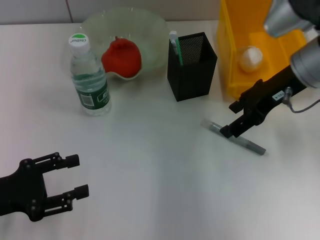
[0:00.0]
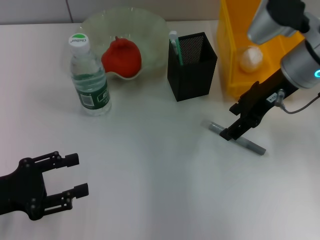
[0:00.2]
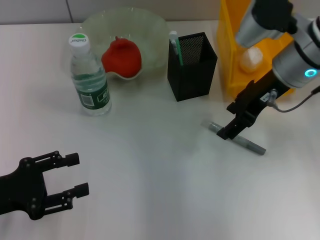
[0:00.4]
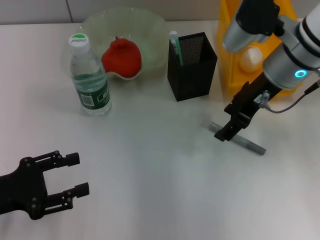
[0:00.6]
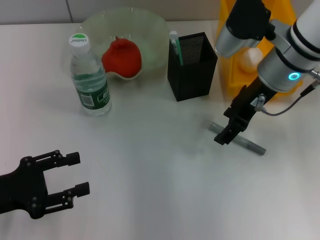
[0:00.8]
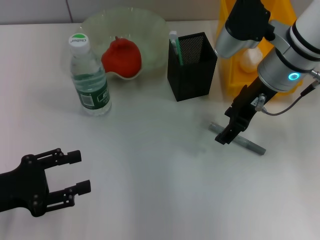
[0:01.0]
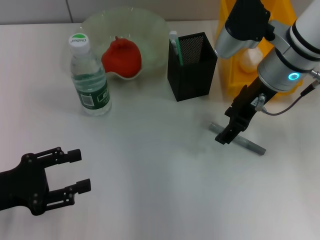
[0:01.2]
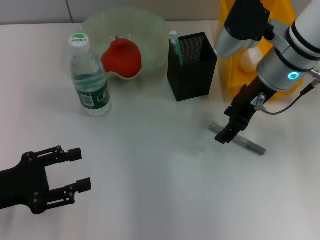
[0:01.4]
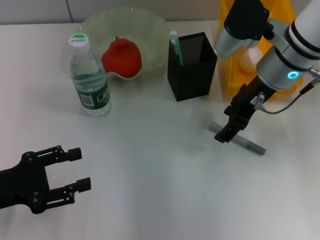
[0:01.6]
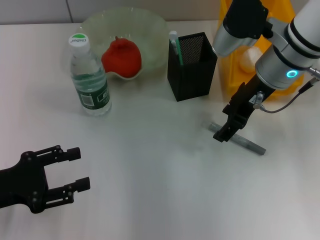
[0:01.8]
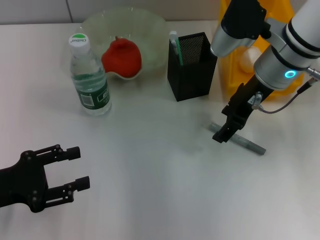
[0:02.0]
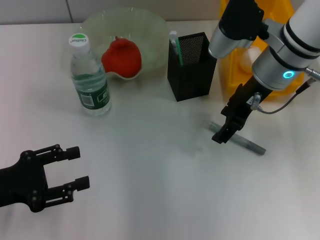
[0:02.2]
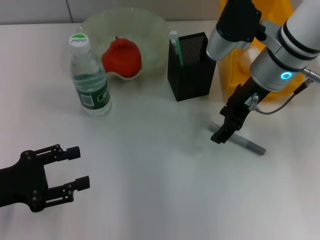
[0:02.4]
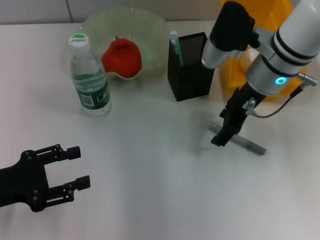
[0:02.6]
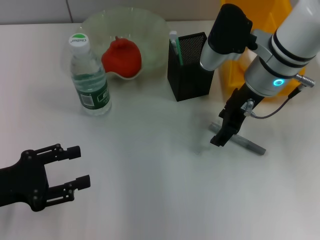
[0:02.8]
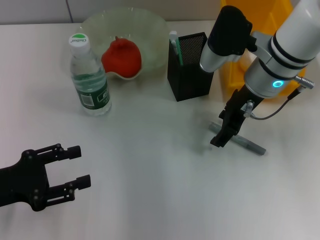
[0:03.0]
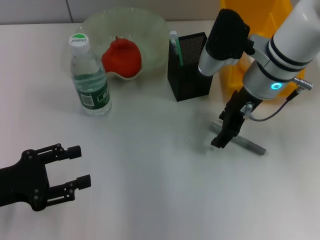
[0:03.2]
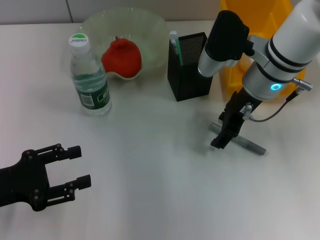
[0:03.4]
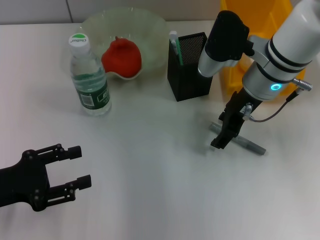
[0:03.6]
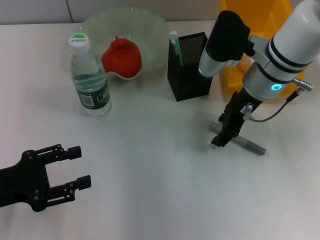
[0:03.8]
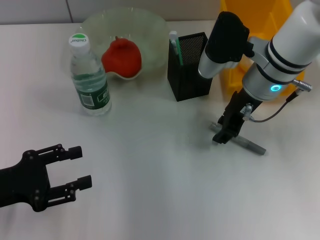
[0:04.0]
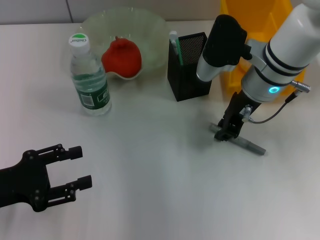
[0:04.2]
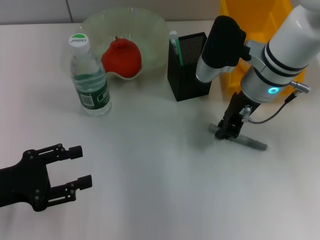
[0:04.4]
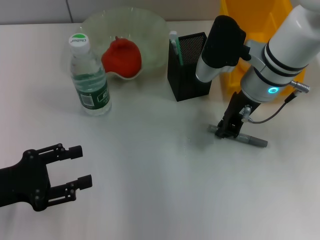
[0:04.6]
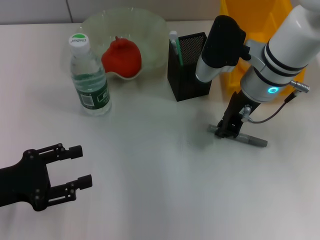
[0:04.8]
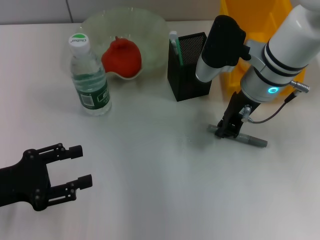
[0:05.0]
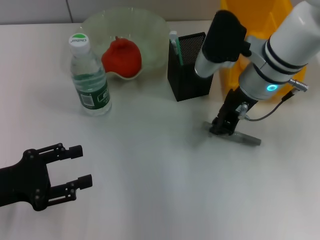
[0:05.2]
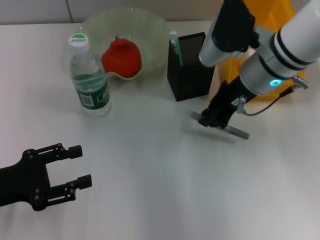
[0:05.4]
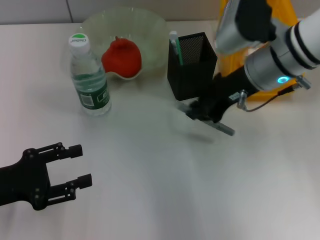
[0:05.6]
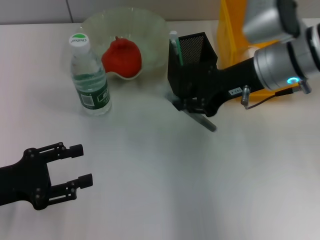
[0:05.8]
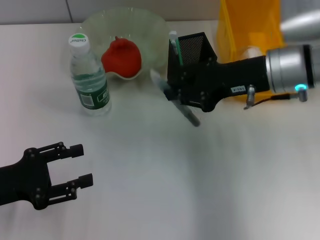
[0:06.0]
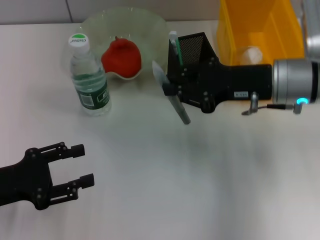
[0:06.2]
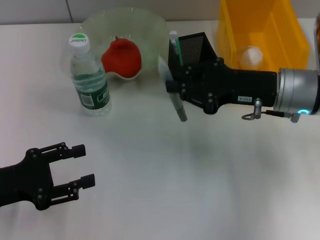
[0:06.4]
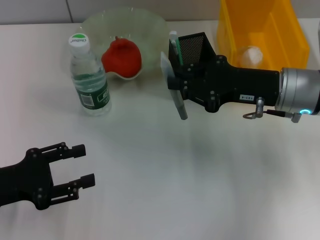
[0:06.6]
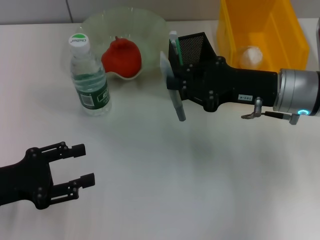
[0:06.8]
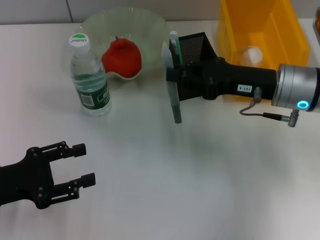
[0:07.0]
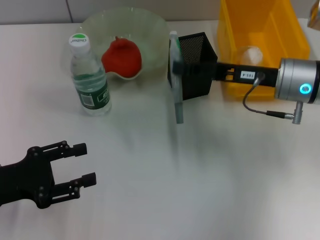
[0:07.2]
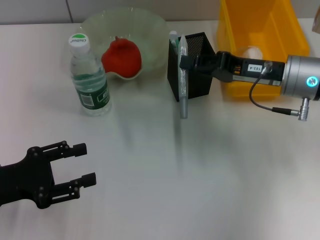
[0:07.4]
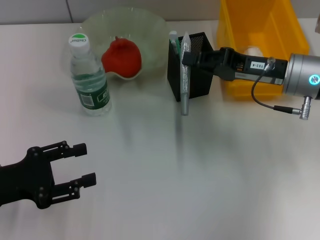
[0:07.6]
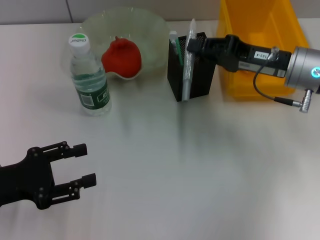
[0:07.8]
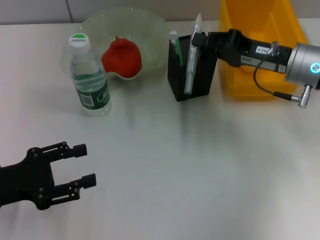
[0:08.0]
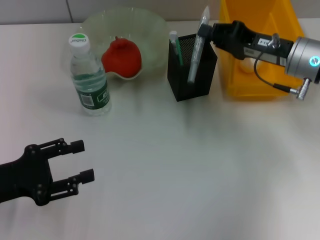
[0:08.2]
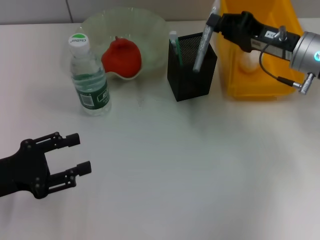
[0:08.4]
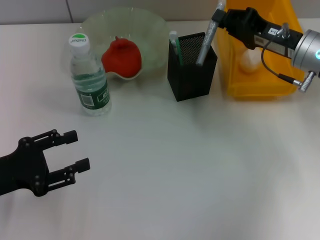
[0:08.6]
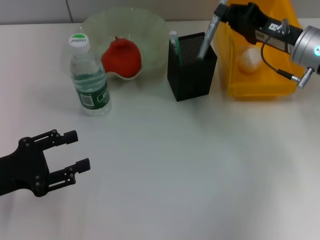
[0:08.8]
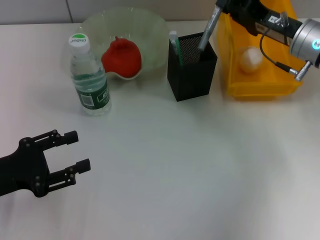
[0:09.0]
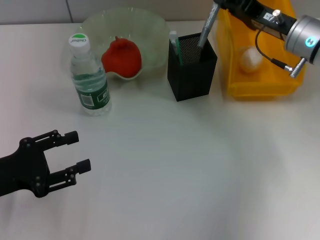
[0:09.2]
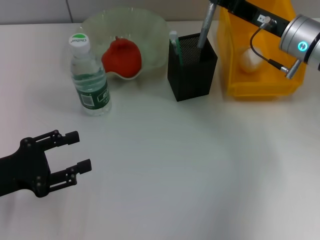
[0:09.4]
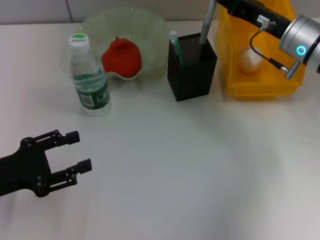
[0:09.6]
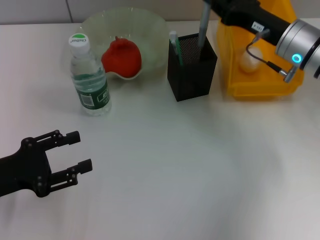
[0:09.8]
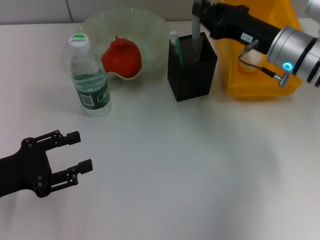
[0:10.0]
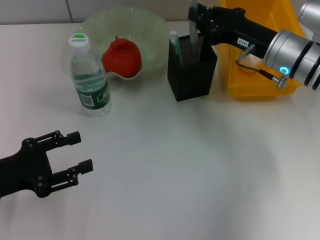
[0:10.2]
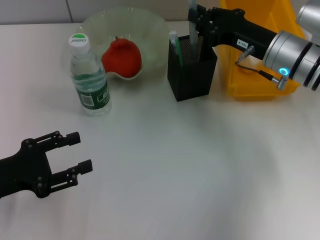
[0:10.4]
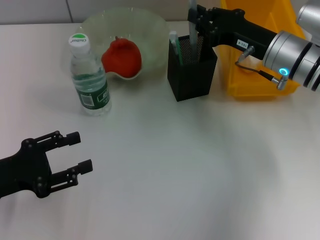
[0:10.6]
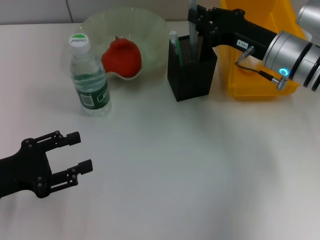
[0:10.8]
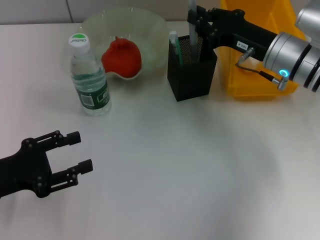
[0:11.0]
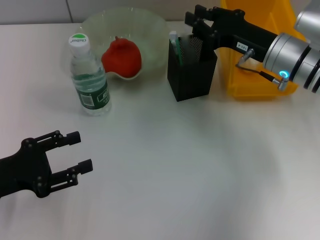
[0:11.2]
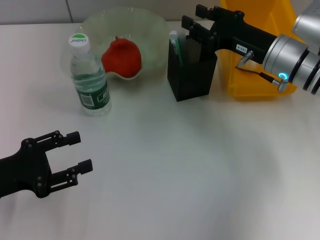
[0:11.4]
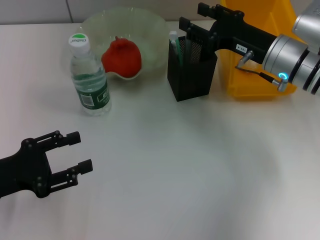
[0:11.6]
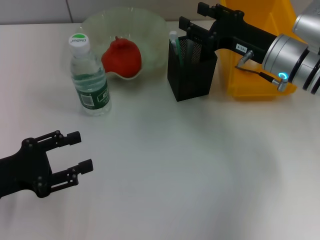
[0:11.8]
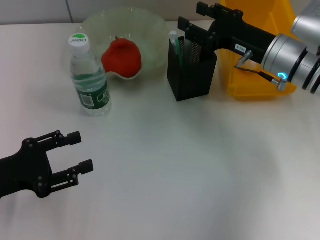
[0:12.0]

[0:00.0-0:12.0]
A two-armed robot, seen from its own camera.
Step, 0:00.0 to 0:04.8: Grab the gray glue with the right hand.
Step, 0:05.0 to 0:11.6: Place the gray glue into the pen holder with the right hand.
0:00.0 to 0:01.6: The right gripper changes place by approximately 5 cm.
0:01.6 to 0:03.0: The grippers make only small movements.
0:03.0 to 0:04.4: The right gripper closes up.
0:04.4 to 0:06.0: The right gripper moves approximately 5 cm.
0:06.0 to 0:07.6: The right gripper changes place by about 5 cm.
0:10.4 to 0:12.0: The right gripper opens up.

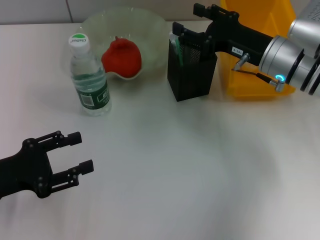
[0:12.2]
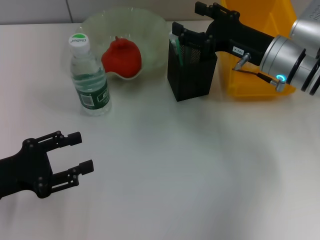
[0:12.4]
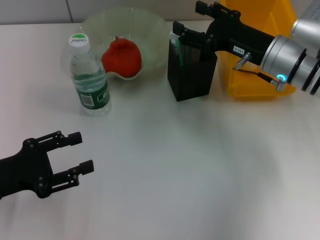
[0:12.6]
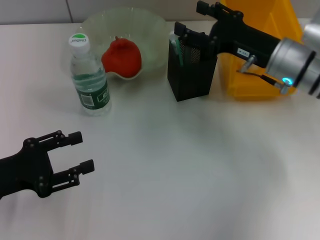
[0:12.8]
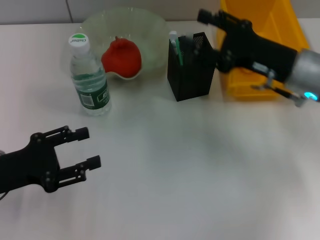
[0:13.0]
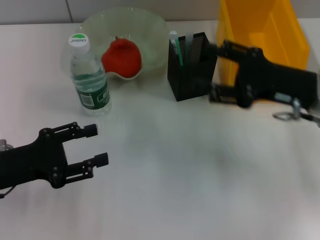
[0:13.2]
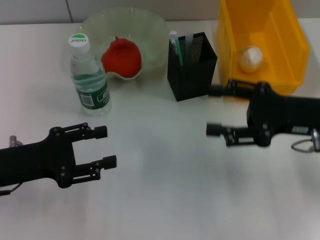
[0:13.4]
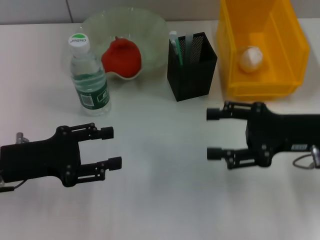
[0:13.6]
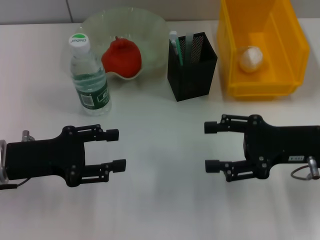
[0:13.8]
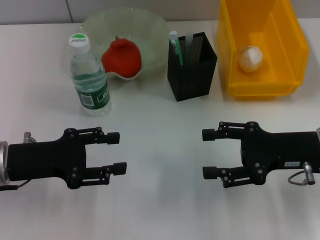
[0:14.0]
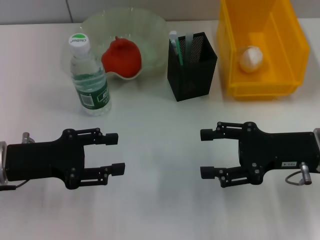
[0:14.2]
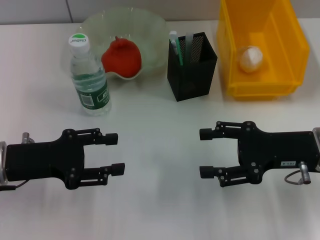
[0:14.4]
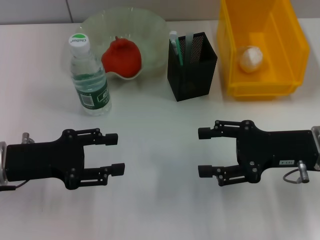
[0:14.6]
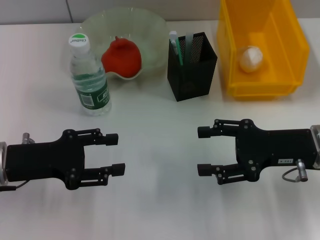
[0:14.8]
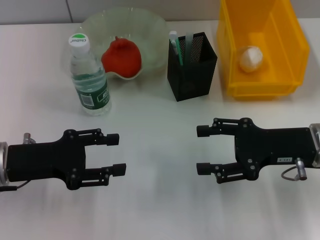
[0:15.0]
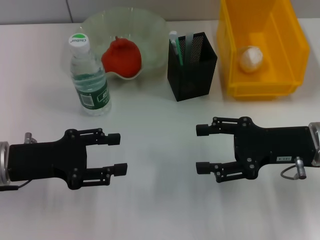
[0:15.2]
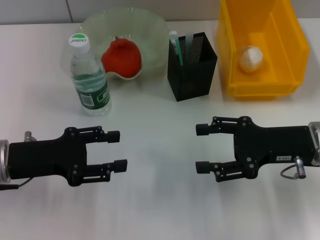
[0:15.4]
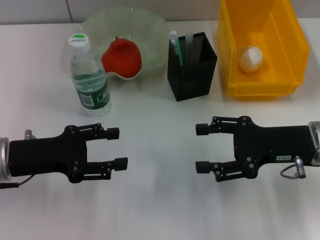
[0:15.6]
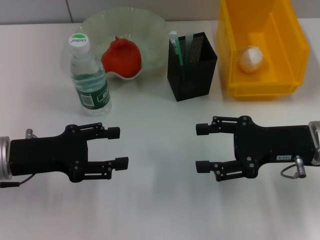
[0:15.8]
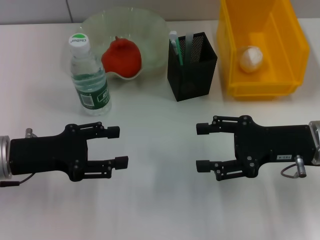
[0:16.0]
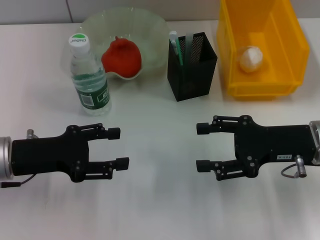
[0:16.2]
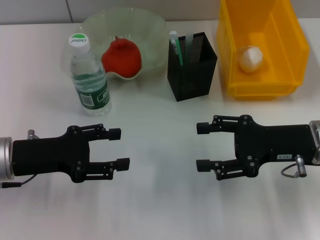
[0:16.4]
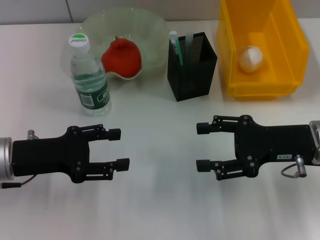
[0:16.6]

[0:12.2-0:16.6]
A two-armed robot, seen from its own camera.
0:12.2 to 0:13.6: The right gripper travels backward and to the right by roughly 10 cm.
0:13.6 to 0:15.2: The grippers make only small movements.
0:15.2 to 0:16.6: Both grippers stay about where they are.

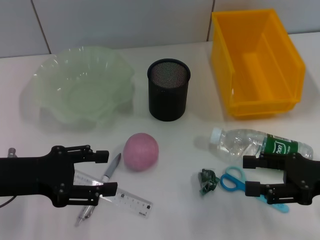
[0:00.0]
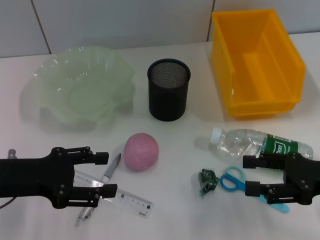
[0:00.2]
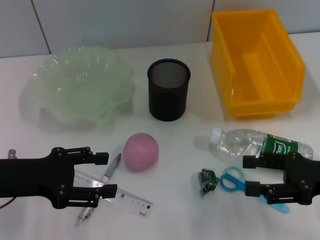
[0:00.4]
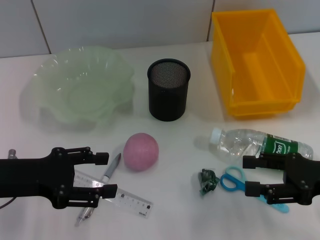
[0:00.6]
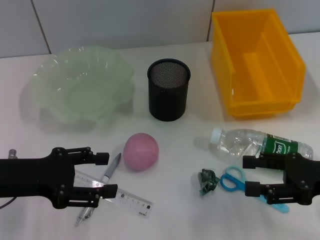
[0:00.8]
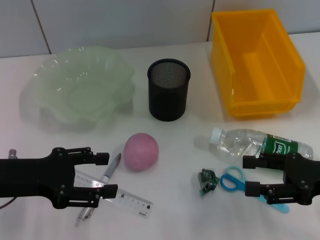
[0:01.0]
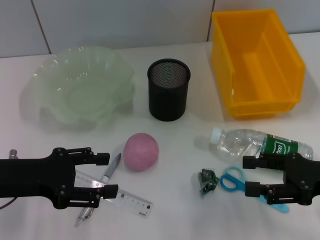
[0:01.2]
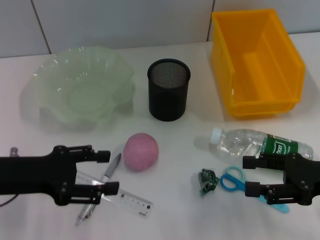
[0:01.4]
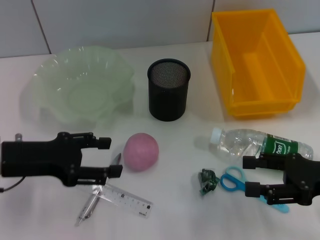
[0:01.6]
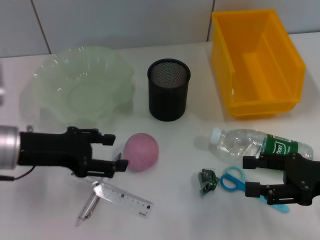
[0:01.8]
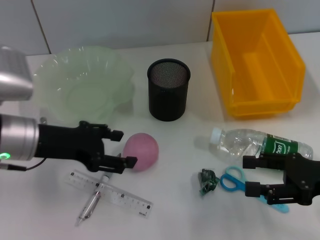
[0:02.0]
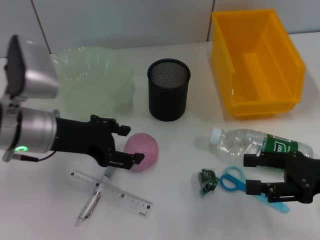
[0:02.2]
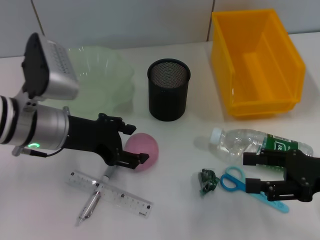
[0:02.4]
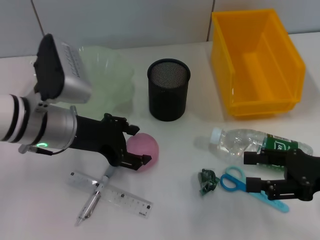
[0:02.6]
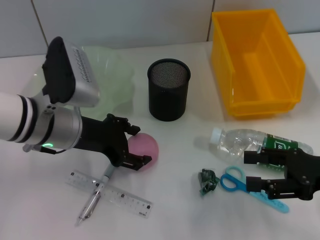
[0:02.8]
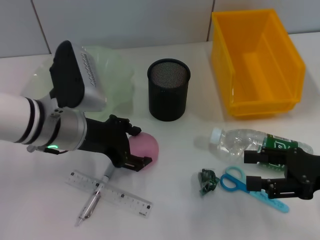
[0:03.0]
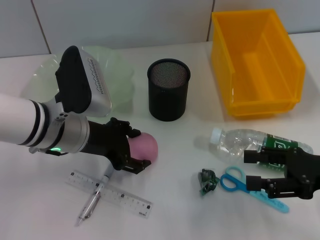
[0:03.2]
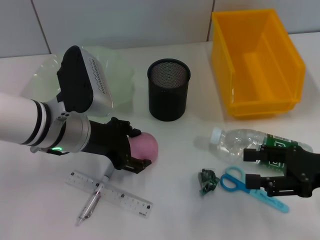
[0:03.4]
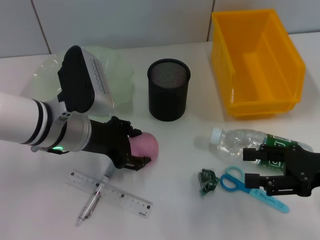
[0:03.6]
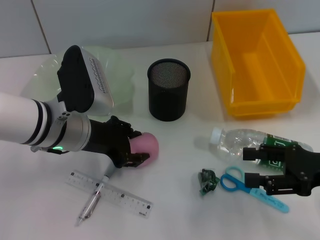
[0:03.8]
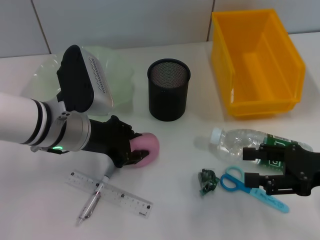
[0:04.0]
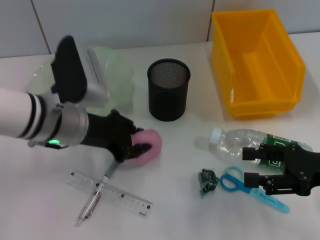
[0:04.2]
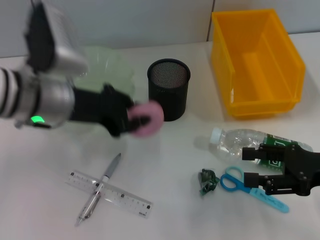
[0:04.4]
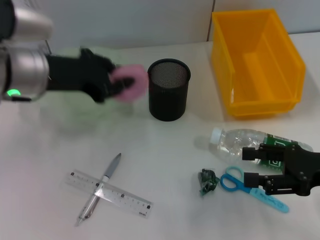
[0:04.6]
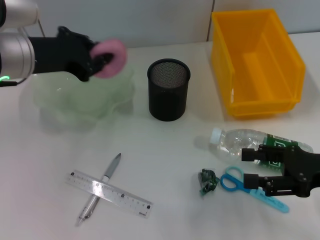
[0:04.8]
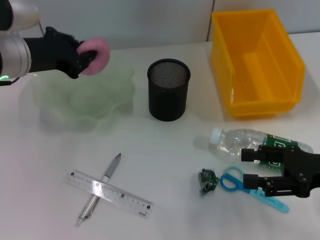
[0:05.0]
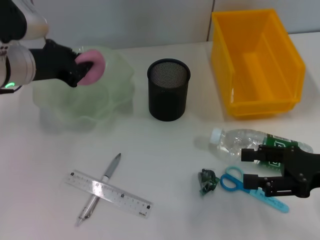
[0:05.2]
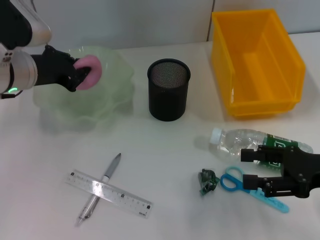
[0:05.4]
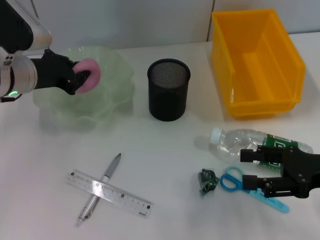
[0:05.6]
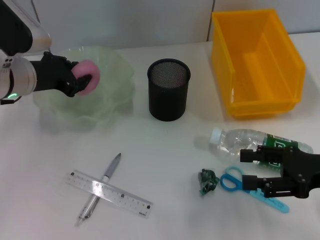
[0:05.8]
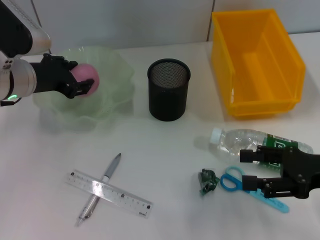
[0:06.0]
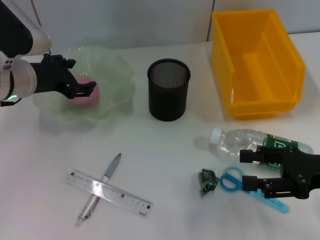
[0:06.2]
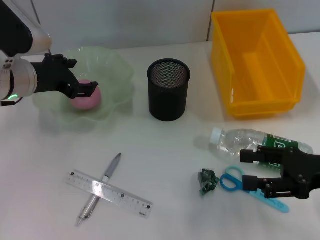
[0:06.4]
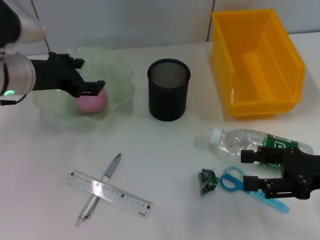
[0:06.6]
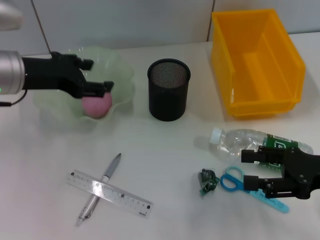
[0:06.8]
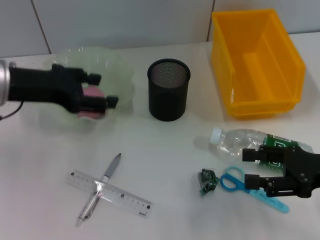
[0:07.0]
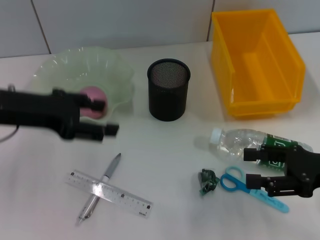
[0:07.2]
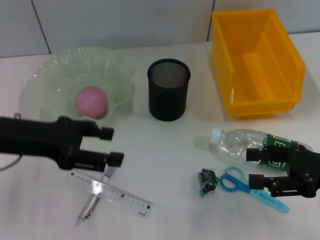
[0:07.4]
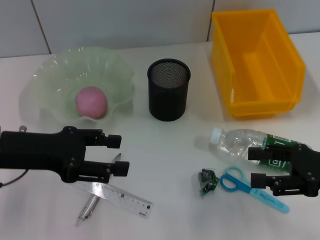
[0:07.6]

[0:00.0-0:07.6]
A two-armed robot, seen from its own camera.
Step, 0:00.0 to 0:04.0: Grab the peach with the left hand.
Step, 0:04.2 to 0:06.0: Place the peach into the fruit bowl with the left hand.
0:00.0 to 0:01.6: The grippers move only a little.
0:01.6 to 0:03.0: The left gripper goes some 10 cm to the right.
0:03.0 to 0:04.6: The left gripper heads upward, covering some 10 cm, and closes its fingers.
0:04.6 to 0:06.0: The left gripper goes some 5 cm downward.
0:06.0 to 0:07.6: The left gripper travels backward by roughly 10 cm, and opens up.
